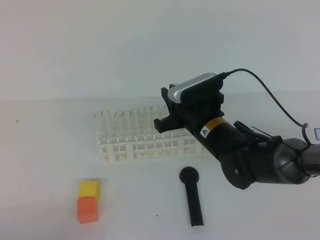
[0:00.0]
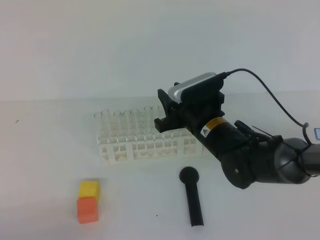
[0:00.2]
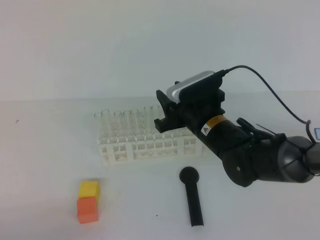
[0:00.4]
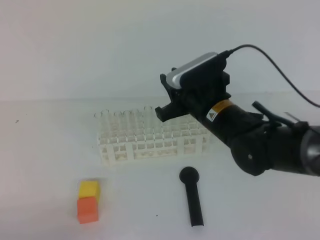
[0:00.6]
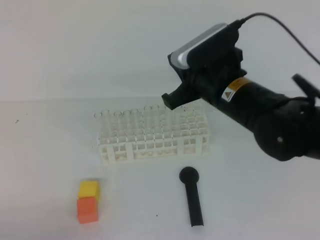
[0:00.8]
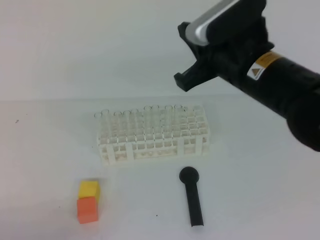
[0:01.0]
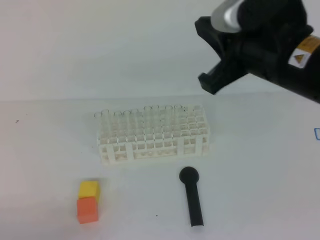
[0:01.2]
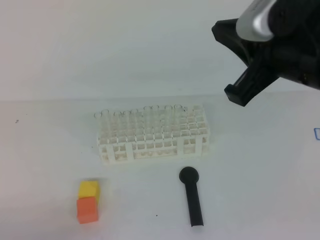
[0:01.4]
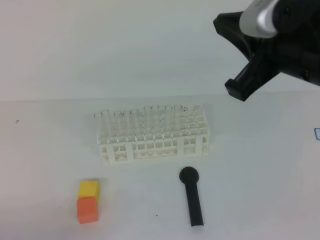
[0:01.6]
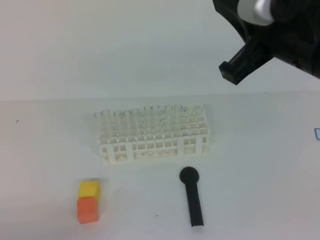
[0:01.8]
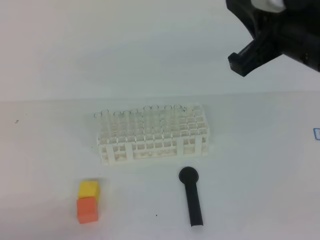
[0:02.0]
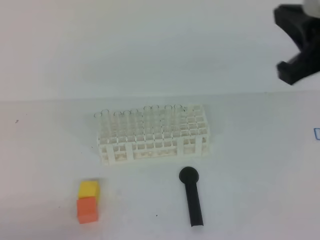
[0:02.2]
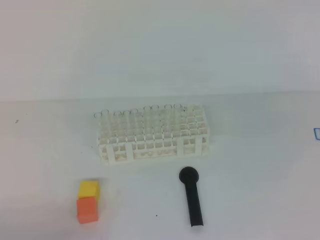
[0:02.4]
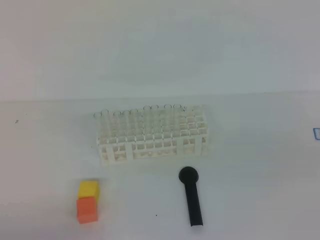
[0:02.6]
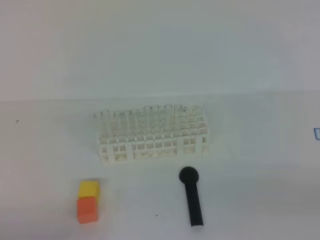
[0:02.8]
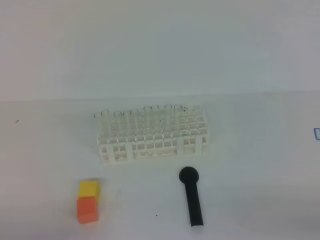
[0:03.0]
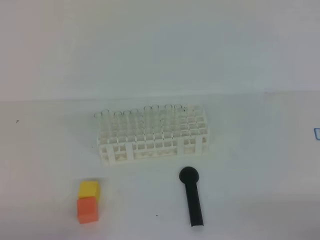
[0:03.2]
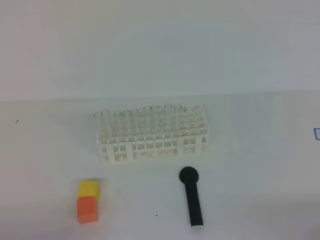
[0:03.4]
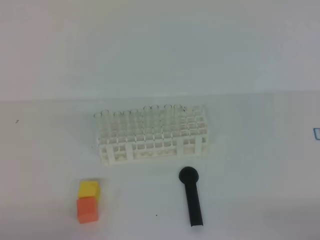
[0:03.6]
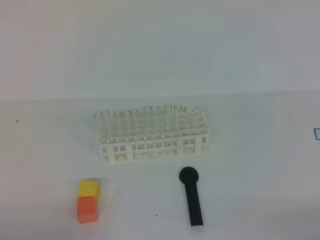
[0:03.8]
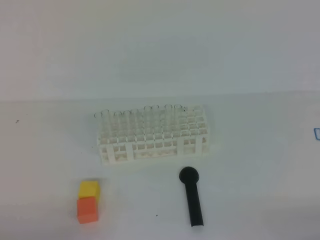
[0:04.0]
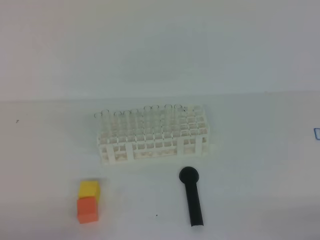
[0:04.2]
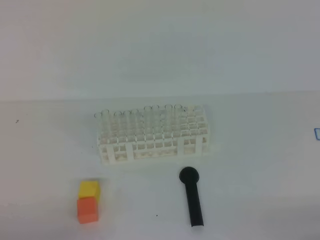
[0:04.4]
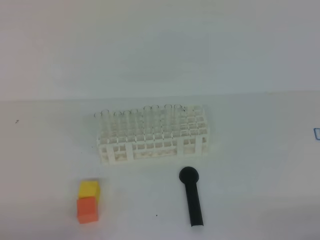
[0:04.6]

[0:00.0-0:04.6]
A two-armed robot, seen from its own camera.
0:00.0 to 0:01.6: The right gripper is displaced upward and backward by about 25 cm, and closes.
0:01.6 to 0:03.0: The right gripper heads downward, to the right and backward, covering some 30 cm.
